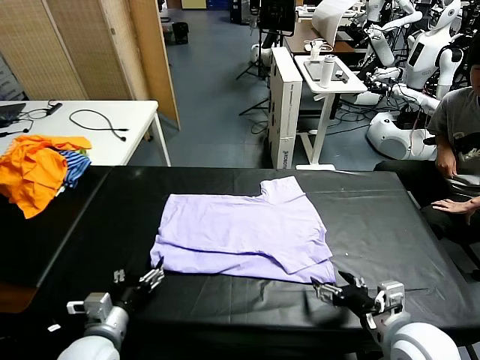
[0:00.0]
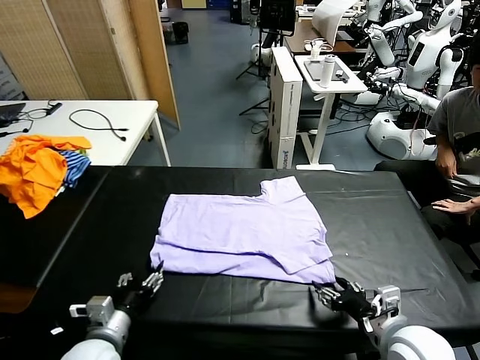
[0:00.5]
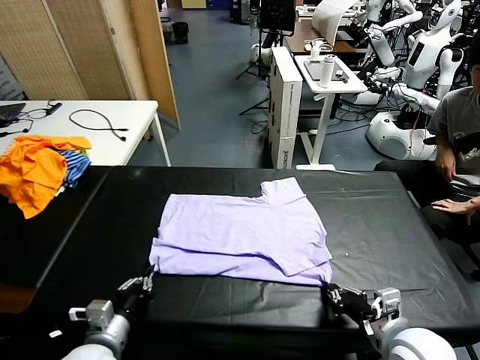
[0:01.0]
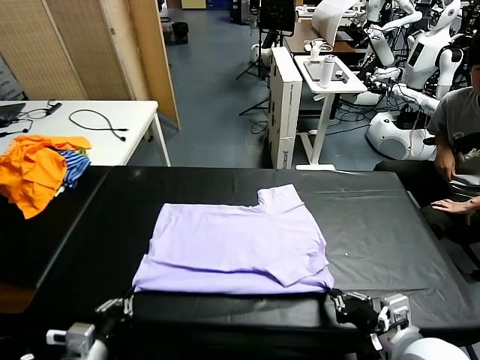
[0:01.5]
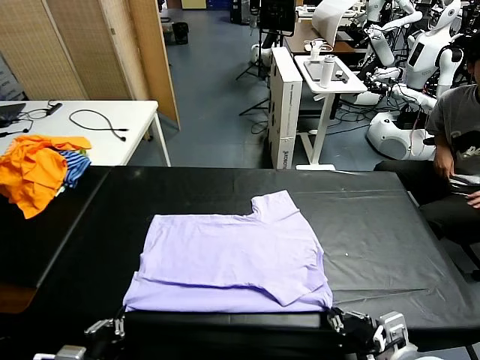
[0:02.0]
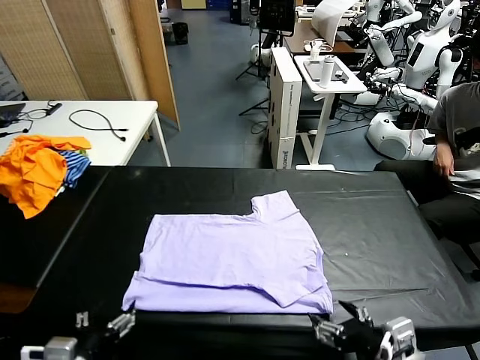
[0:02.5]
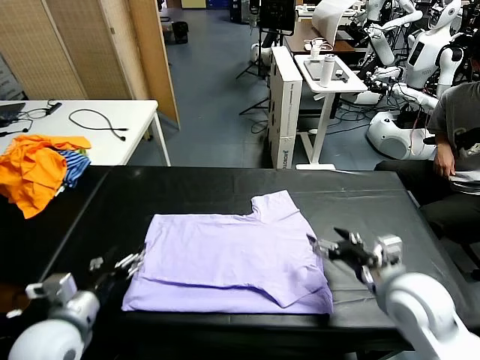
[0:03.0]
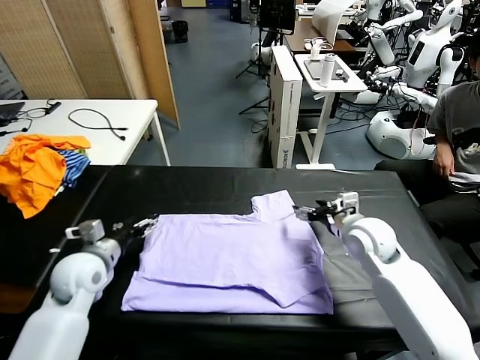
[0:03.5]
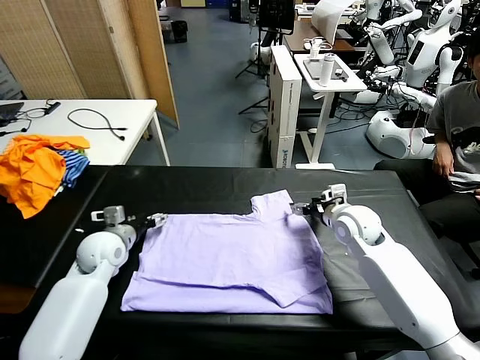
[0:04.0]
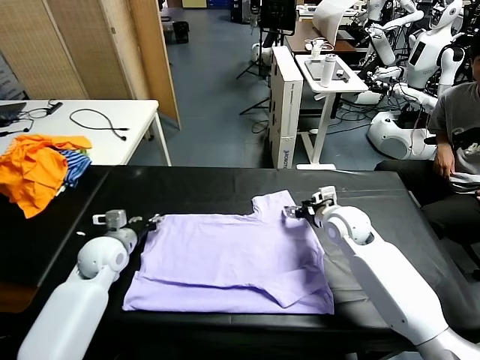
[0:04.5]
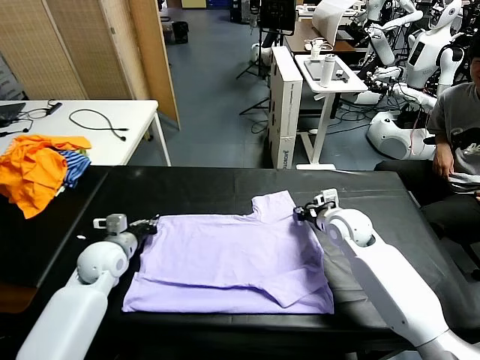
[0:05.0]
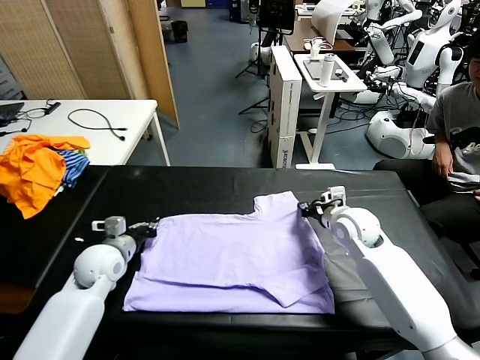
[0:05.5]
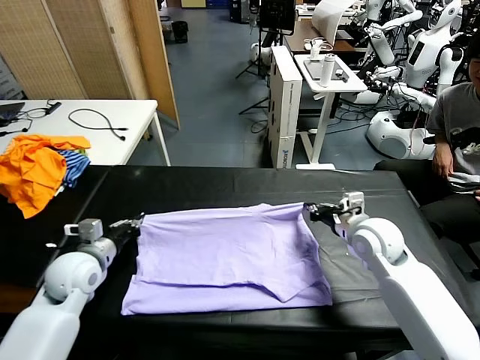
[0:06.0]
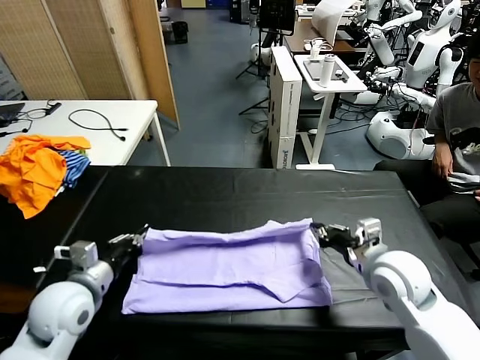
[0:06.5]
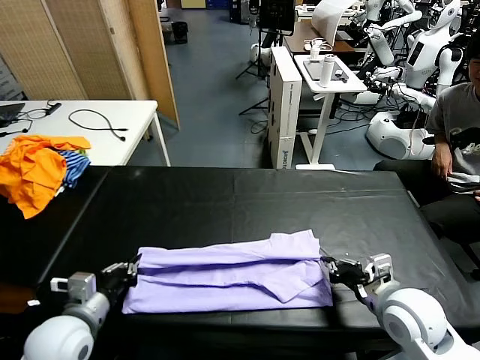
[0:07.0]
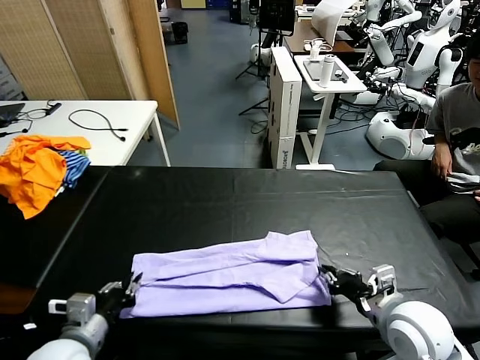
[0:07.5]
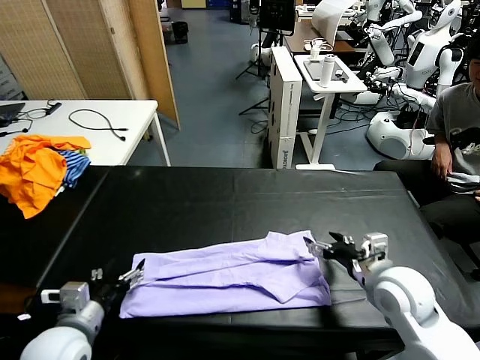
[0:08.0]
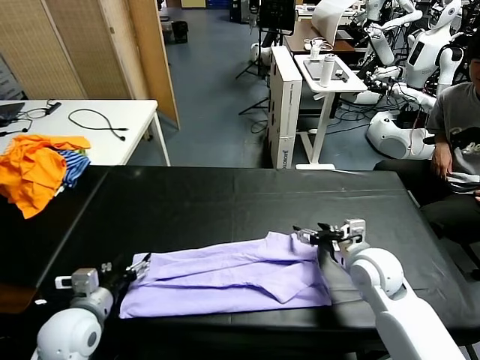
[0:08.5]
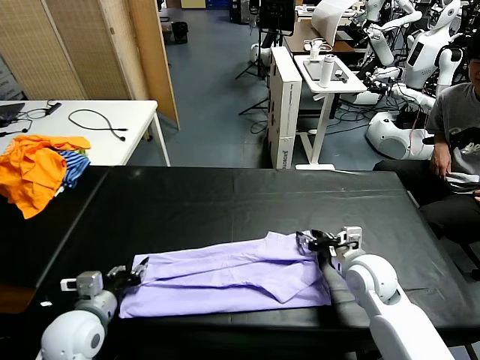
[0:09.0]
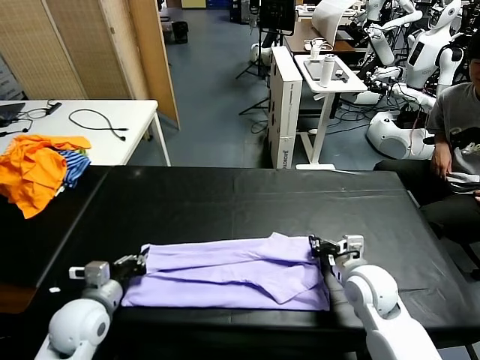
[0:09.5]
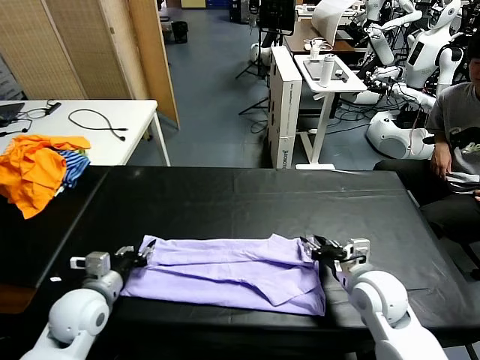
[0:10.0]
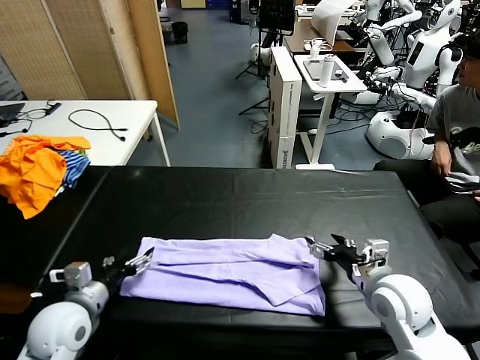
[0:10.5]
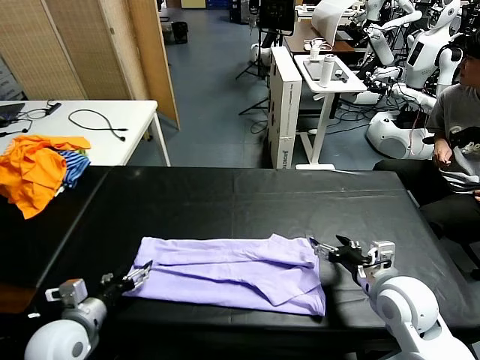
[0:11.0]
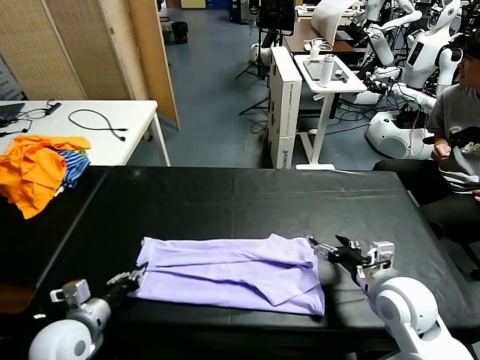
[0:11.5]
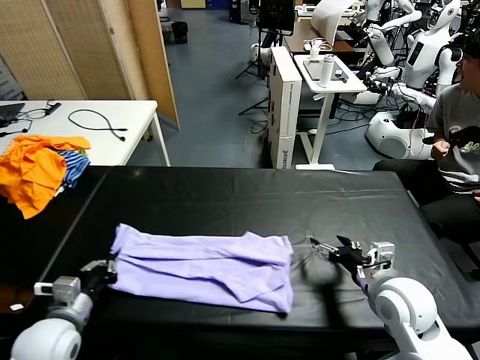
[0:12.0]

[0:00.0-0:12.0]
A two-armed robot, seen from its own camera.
Task of the whole recording: fold and organize the clothes.
Step, 0:00.0 to 0:02.5: Drag the clothes downward with both gripper.
Step, 0:03.0 to 0:05.0: use both grippers simultaneously to clamp the upper edge of the clothing fabric.
Step, 0:05.5 to 0:10.0: use both grippers to drag the upper edge of the fabric backward and fold it over the lower edge.
Step, 0:10.5 to 0:11.5: use the left gripper to clamp the left edge of the fabric.
0:00.0 to 0:02.0: The left gripper heads backward, covering approximately 10 cm, and closes its fingers; the right gripper moves backward, about 5 cm, and closes its fingers.
0:02.0 to 0:04.0: The grippers both shift forward by some 30 cm. The right gripper opens; the left gripper opens.
0:04.0 to 0:06.0: Both grippers move backward, some 10 cm. The right gripper closes up, while the left gripper closes up.
0:06.0 to 0:08.0: The left gripper shifts about 15 cm backward, and opens. The right gripper moves backward, approximately 5 cm, and opens.
0:08.0 to 0:10.0: The left gripper shifts about 5 cm forward, and closes. The right gripper closes and opens again.
0:10.0 to 0:12.0: The left gripper travels backward by about 5 cm, and closes its fingers.

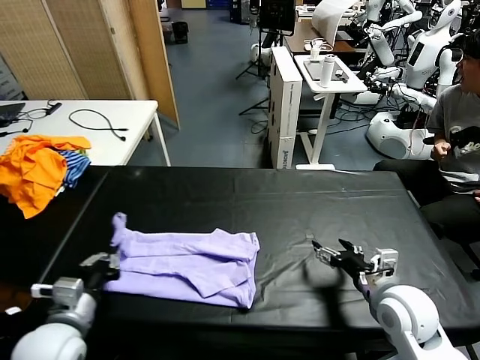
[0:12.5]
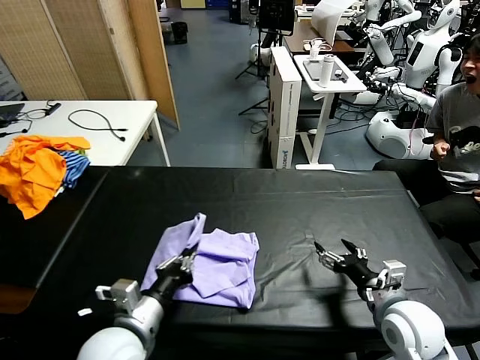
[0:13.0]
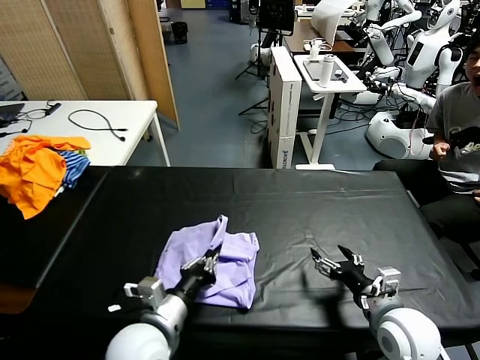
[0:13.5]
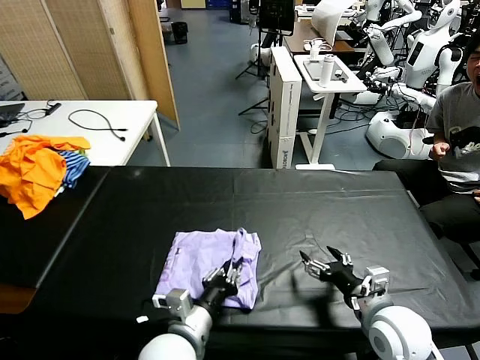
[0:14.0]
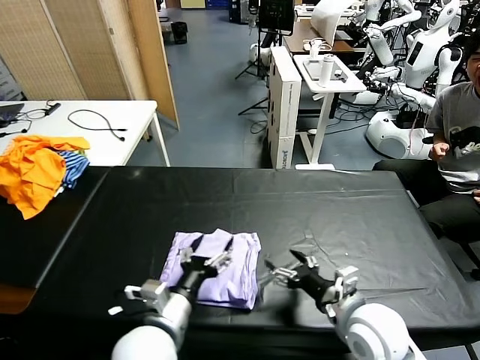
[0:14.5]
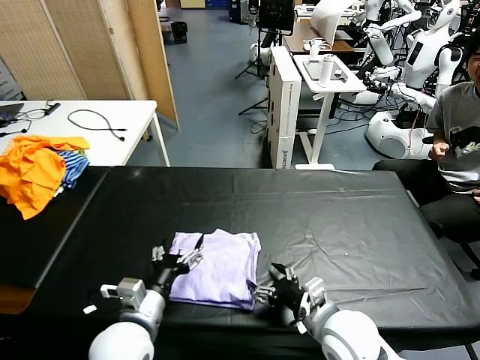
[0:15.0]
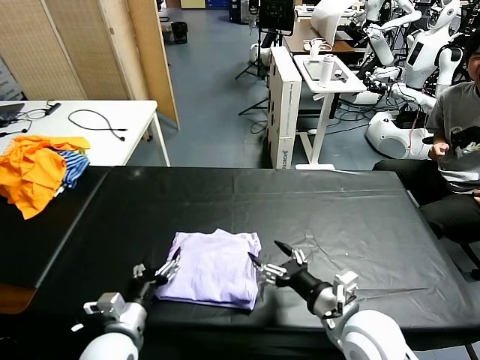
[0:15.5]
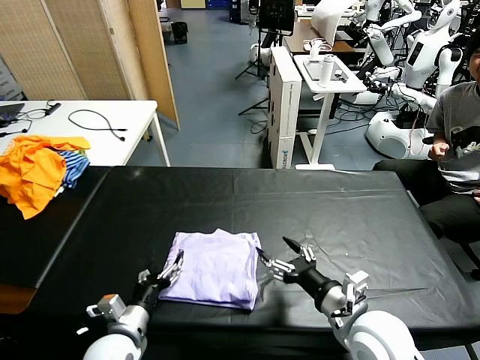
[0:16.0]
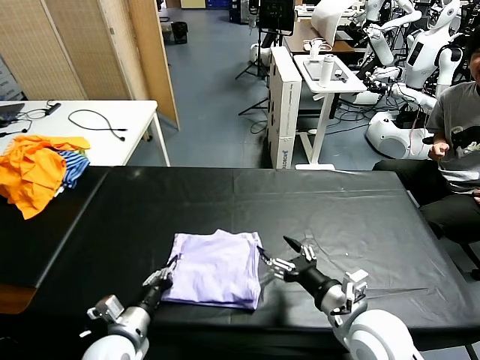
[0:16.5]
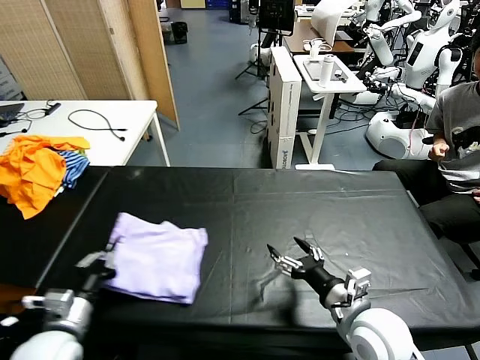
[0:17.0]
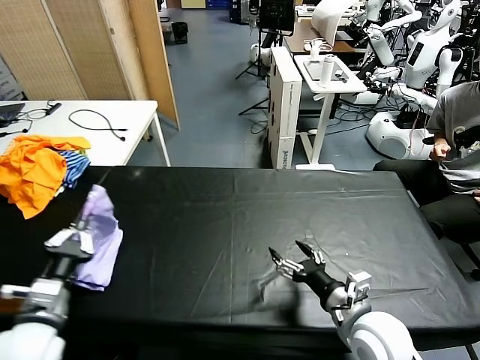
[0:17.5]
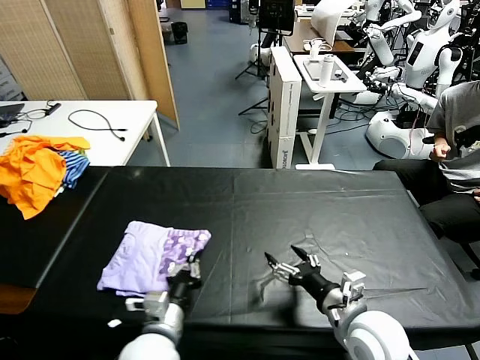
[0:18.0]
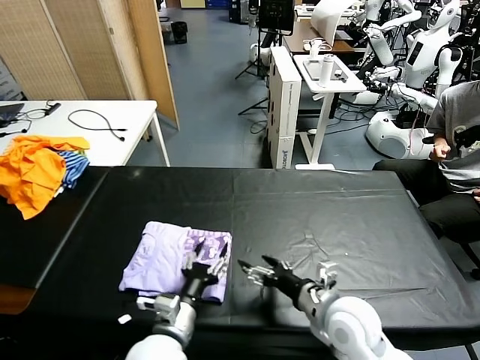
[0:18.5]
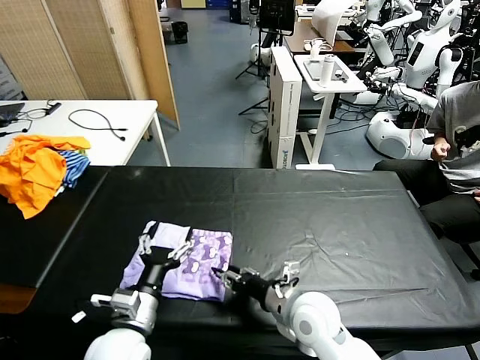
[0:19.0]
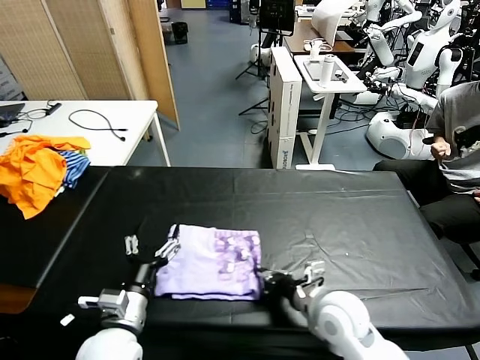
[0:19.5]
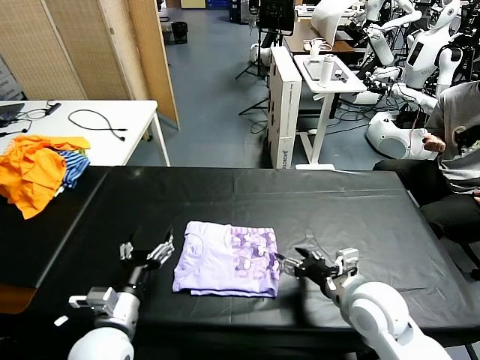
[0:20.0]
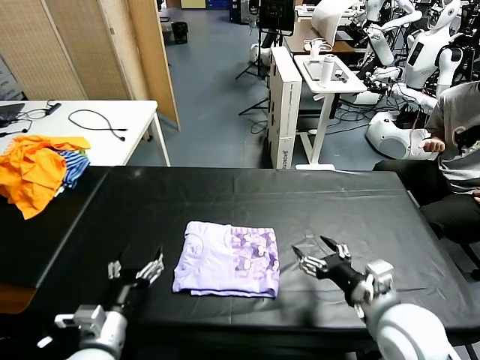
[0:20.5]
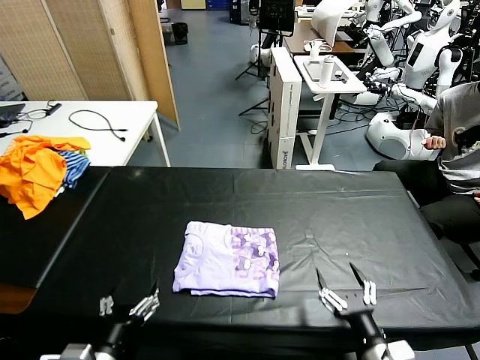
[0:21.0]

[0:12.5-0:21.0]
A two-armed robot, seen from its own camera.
Task of the whole recording: fold and organize the clothes.
Step, 0:12.5 to 0:15.0: use the left gripper to drag the left edge of the fabric to the left and folds it over the right edge.
Step, 0:15.5 to 0:18.5: Flip the folded clothes over with left gripper.
Step, 0:19.0 to 0:20.0: Drag the clothes to the center of the table.
0:12.5 to 0:14.5: The right gripper is displaced to the left by about 5 cm; the left gripper heads to the right, covering some 15 cm, and opens.
0:14.5 to 0:16.5: The left gripper travels to the left and downward by some 15 cm, and closes its fingers.
0:16.5 to 0:19.0: The right gripper moves to the left, forward and downward, about 10 cm. Meanwhile the left gripper goes left and right, some 20 cm each way, reversing 2 times, and opens up.
0:19.0 to 0:21.0: The right gripper heads backward and to the right, covering about 20 cm, and closes, then opens again, while the left gripper is displaced backward by approximately 10 cm.
